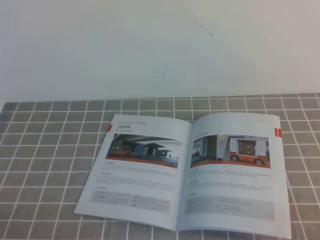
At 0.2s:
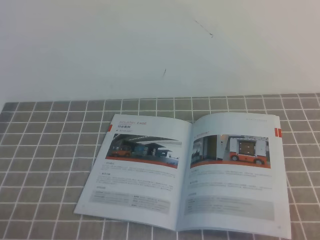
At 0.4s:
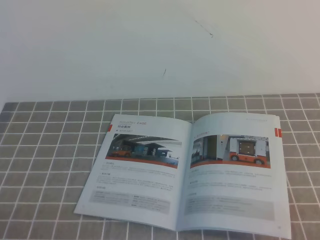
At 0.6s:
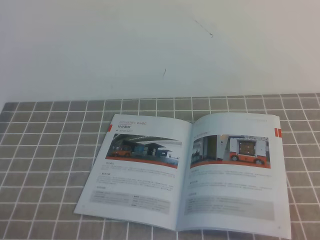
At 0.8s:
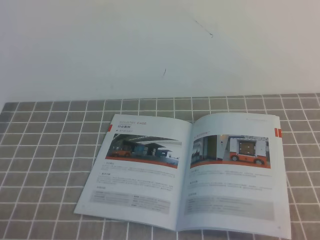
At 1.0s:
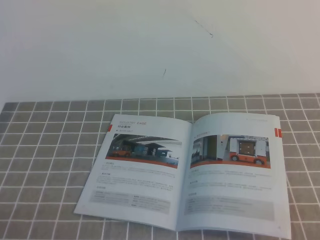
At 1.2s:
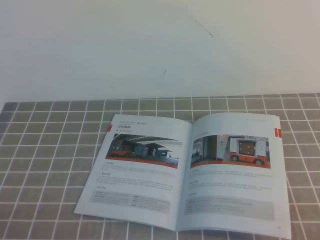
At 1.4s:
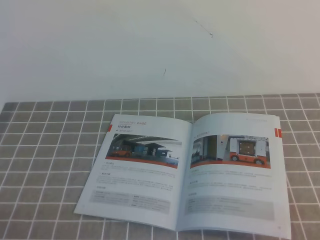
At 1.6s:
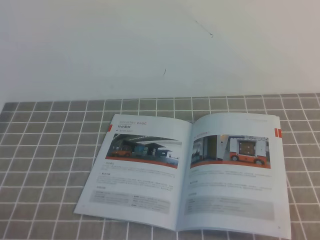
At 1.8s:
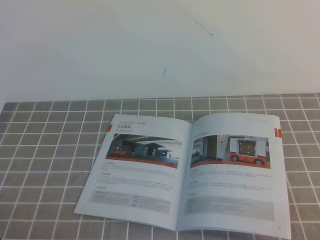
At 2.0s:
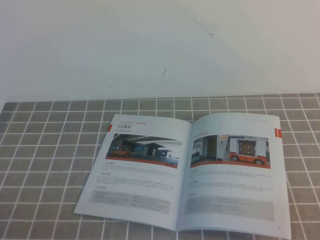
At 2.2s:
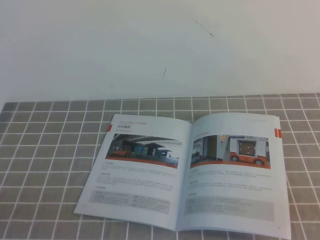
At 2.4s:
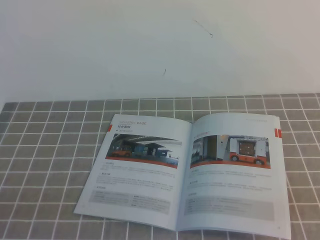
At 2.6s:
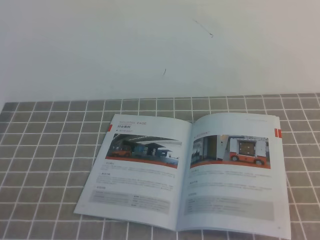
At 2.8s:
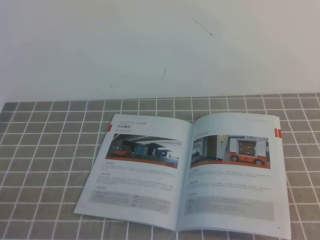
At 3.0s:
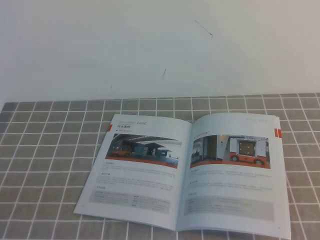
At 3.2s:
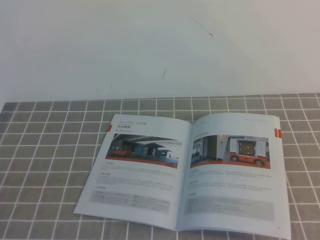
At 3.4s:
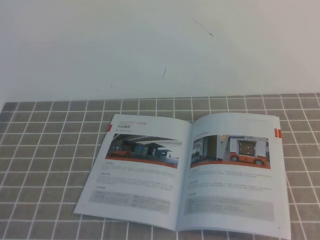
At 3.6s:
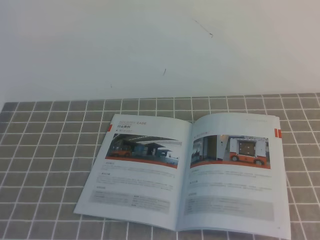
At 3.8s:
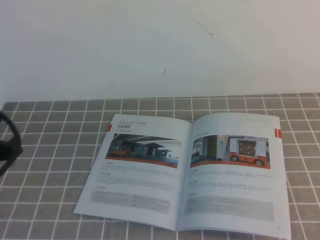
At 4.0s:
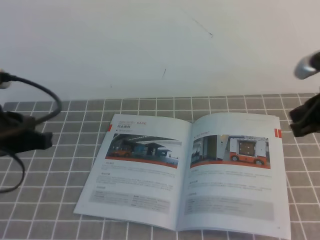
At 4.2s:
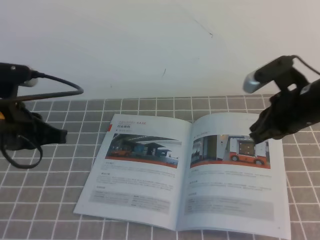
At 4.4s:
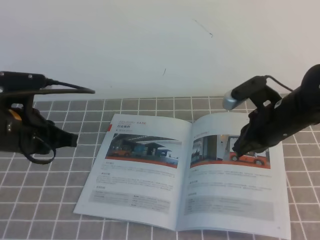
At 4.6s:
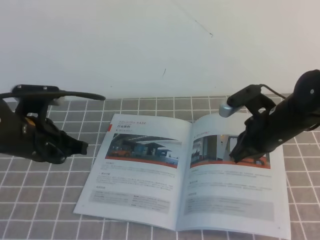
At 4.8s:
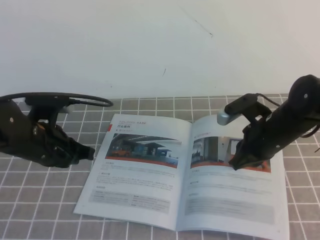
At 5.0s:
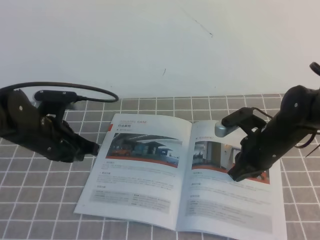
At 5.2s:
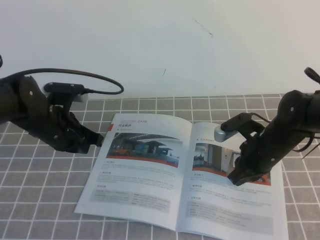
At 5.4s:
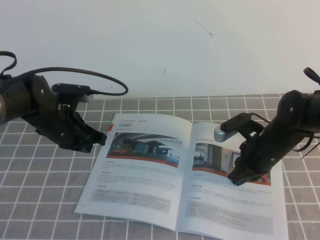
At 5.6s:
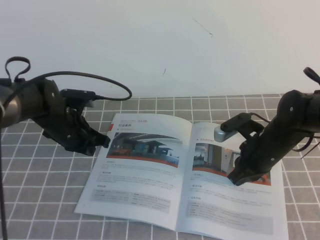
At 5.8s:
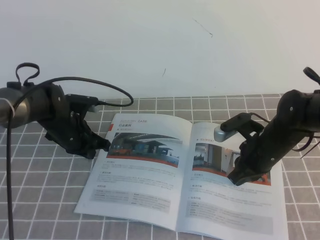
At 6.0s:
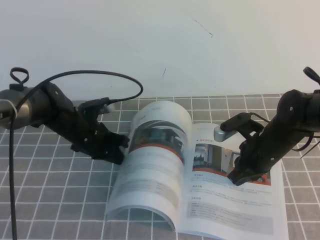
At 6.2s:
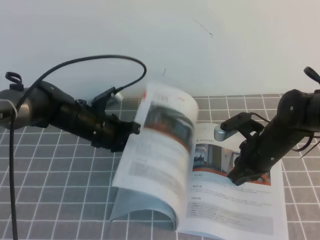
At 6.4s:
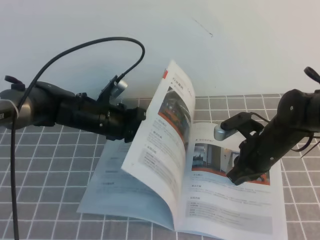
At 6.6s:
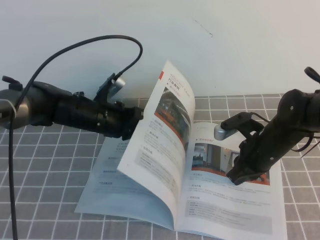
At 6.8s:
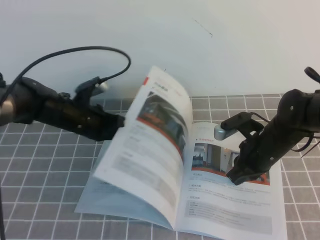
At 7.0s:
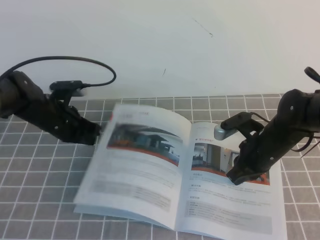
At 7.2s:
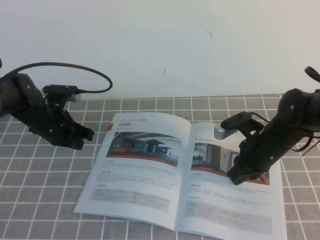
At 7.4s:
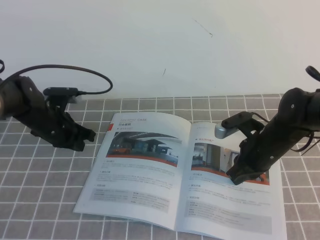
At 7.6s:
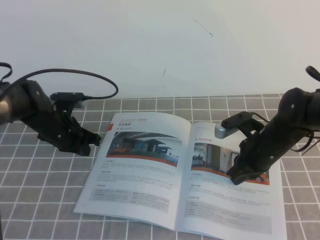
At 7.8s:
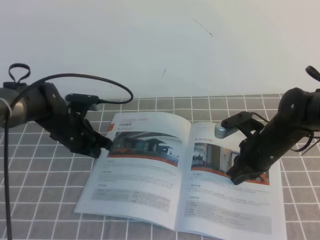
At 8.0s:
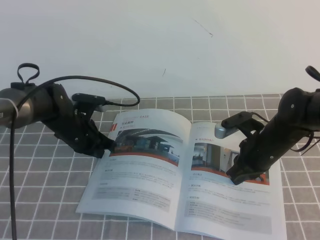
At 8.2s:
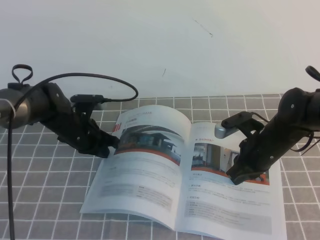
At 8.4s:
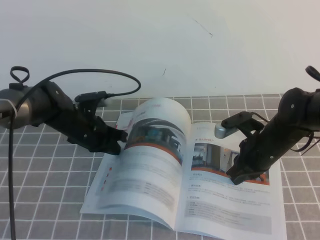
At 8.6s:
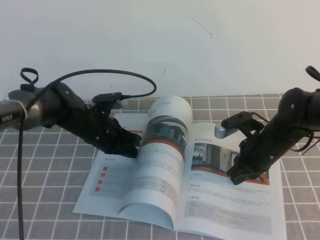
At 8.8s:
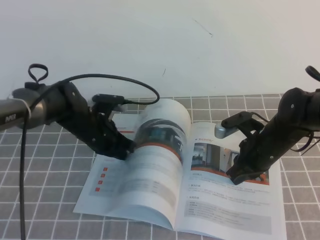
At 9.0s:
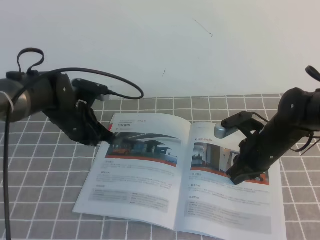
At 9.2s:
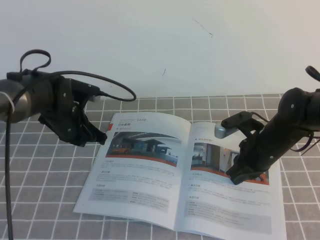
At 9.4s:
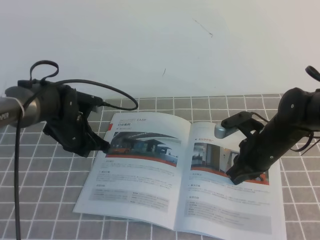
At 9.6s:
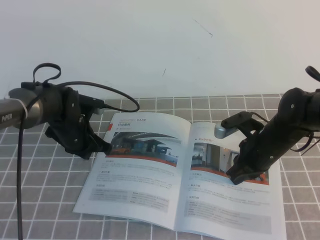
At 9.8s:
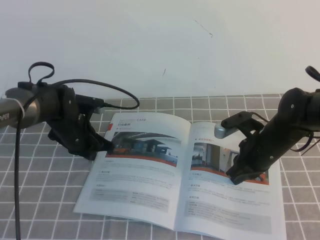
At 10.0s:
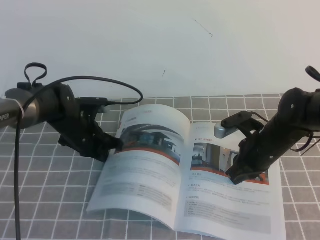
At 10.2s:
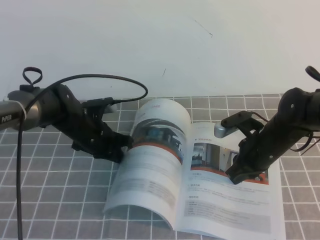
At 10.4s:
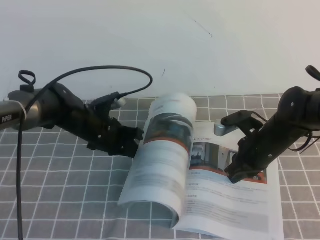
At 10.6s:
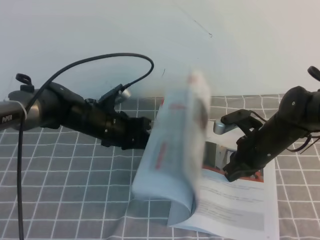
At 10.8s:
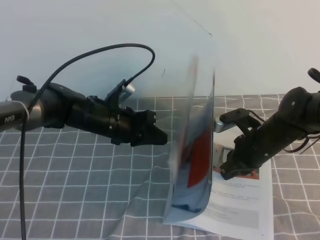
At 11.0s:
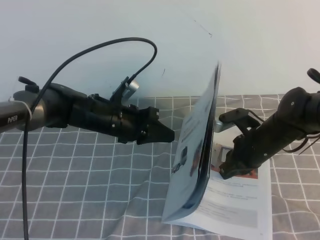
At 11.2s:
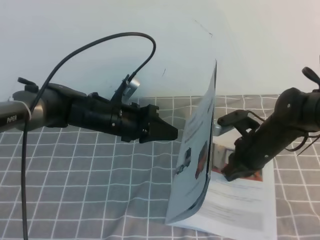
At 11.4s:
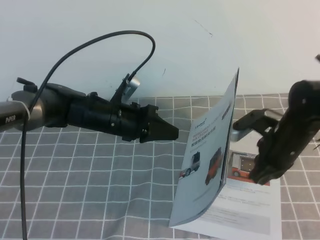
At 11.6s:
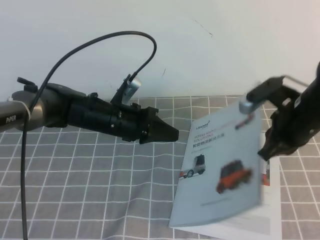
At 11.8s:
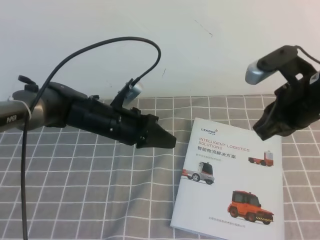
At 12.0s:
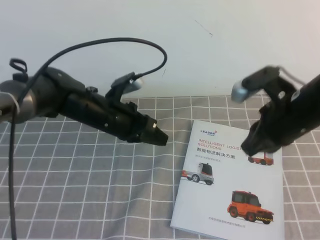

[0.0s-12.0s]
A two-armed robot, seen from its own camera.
Task of the whole recording: on the grey tablecloth, hold the book with one hand and close it with the other.
0.0s to 1.6s: Neither gripper changes place.
3.0s to 4.4s: The left gripper moves forward, about 25 cm. The right gripper travels forward and to the left by some 35 cm.
4.4s to 6.0s: The left gripper shifts roughly 20 cm forward and downward. Meanwhile the right gripper heads downward, covering about 10 cm.
6.0s to 7.6s: The left gripper changes place by approximately 5 cm.
7.6s to 9.0s: The left gripper goes about 5 cm to the right.
10.4s to 12.0s: The right gripper shifts about 15 cm upward, while the left gripper moves upward, roughly 5 cm.

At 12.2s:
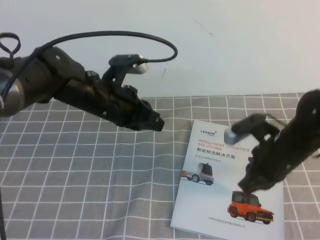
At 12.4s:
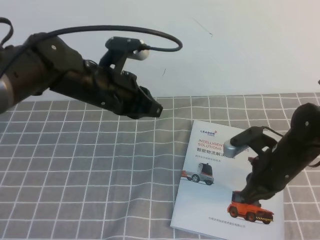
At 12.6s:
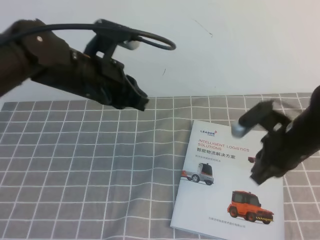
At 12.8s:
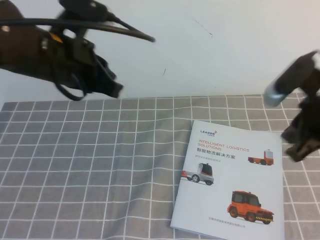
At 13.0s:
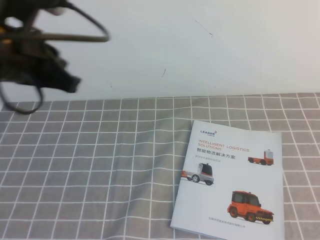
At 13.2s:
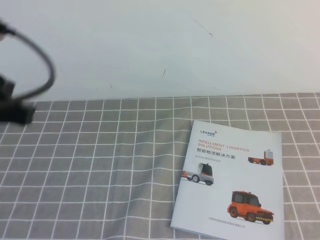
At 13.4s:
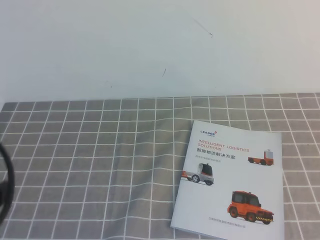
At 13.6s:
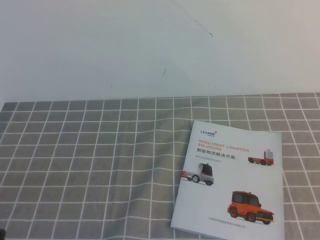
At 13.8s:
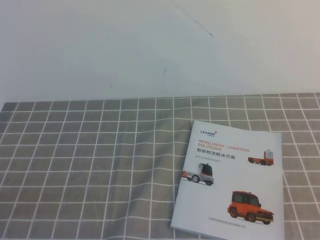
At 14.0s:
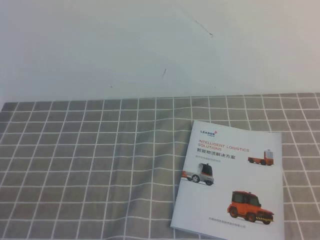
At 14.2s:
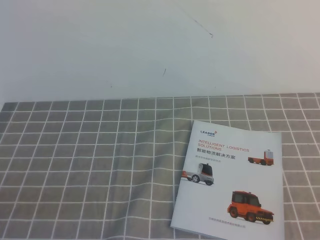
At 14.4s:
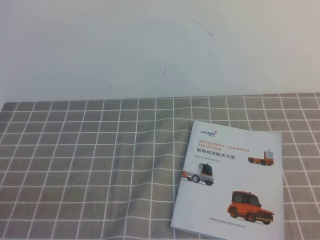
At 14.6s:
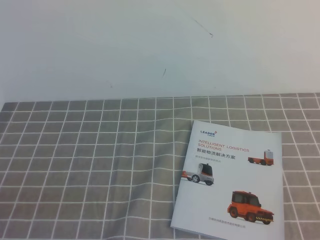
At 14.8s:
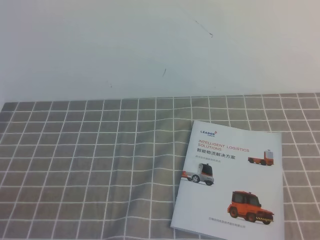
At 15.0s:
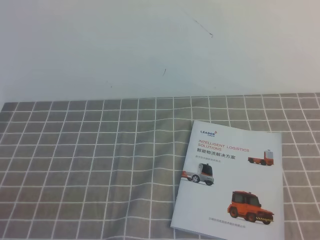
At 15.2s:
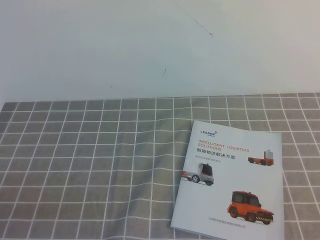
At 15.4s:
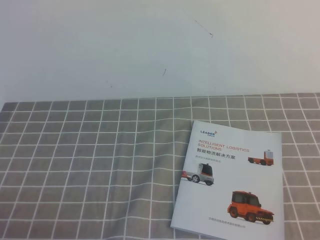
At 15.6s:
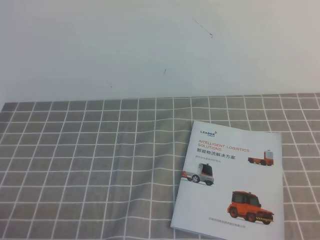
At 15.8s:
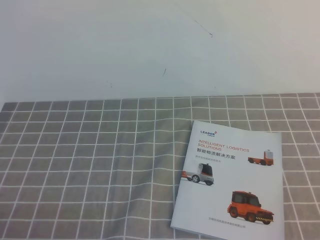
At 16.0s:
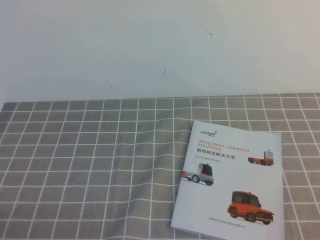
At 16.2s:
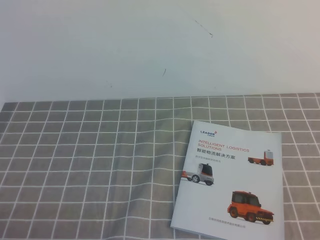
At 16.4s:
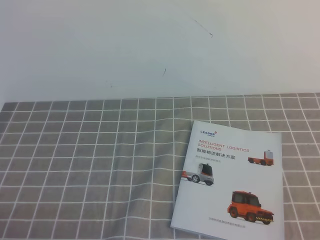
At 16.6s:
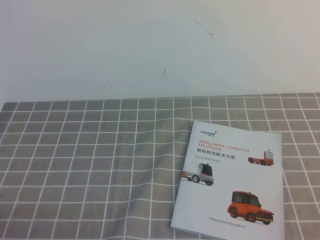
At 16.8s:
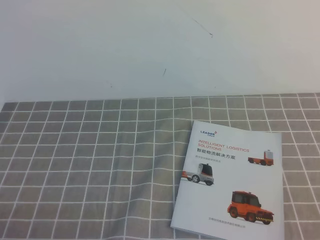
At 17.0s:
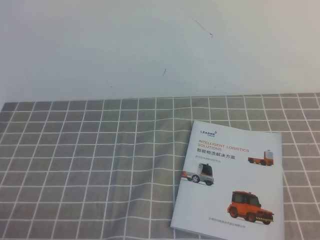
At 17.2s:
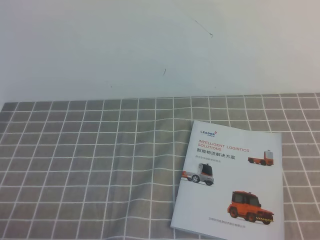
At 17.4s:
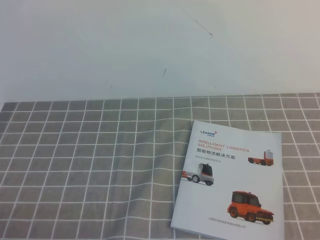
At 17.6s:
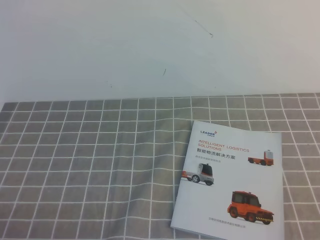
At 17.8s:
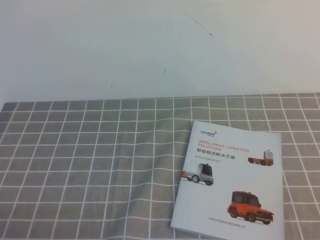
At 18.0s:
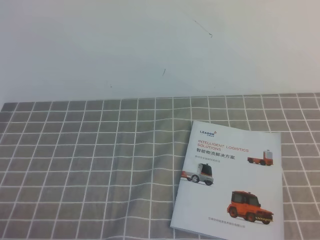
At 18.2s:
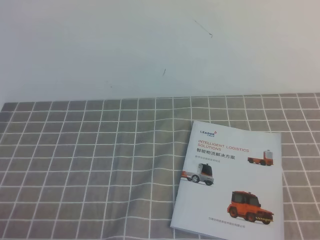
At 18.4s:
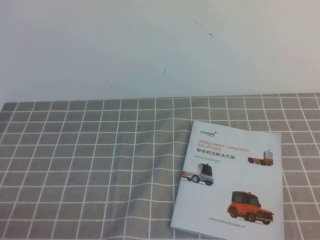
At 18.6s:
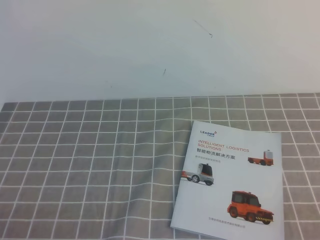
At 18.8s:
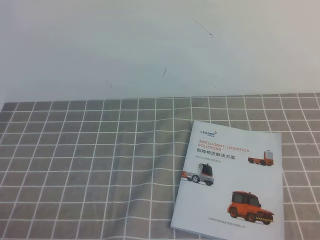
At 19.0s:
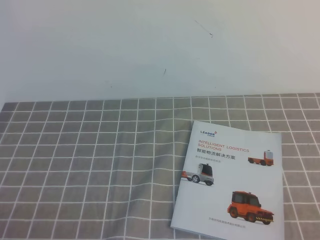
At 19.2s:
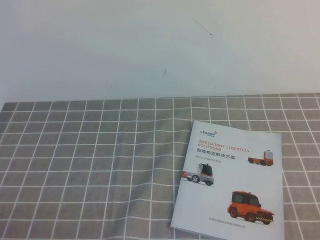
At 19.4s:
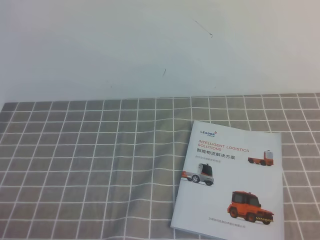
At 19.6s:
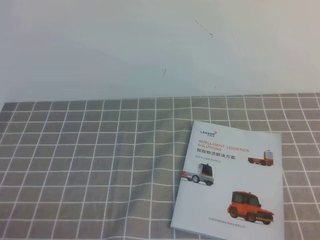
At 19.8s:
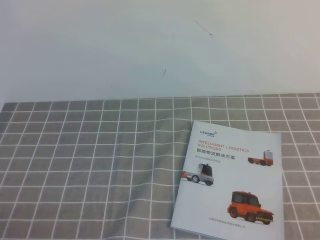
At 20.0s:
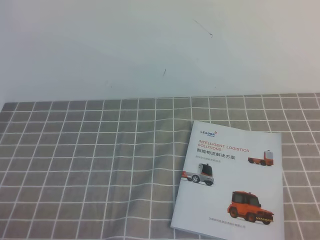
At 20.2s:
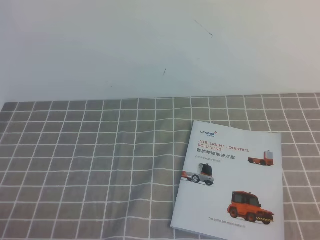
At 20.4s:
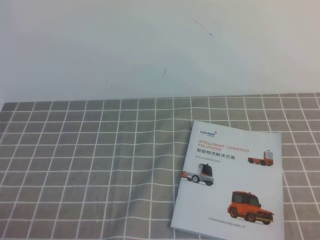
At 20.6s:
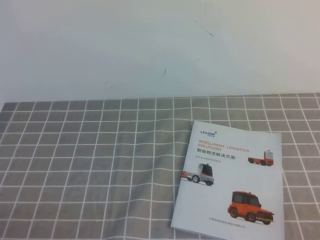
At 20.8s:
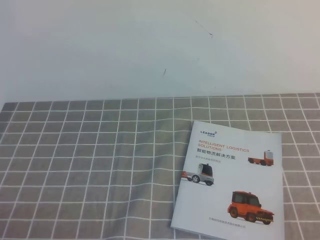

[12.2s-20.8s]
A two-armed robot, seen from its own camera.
Task of the whole recording: on the grey tablecloth, hold the book with one hand and close it with the other.
Step, 12.2s to 20.8s: Close the open book.
12.2s to 13.6s: The left gripper heads backward and to the left, covering approximately 30 cm. The right gripper heads backward, upward and to the right, covering some 25 cm.
19.4s to 20.8s: Neither gripper changes place.

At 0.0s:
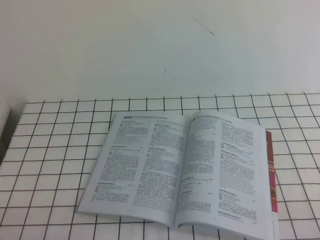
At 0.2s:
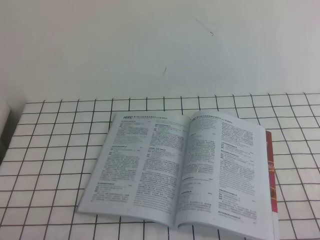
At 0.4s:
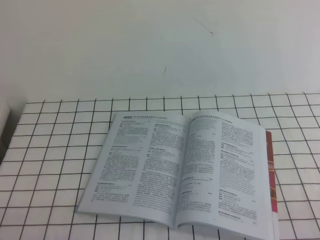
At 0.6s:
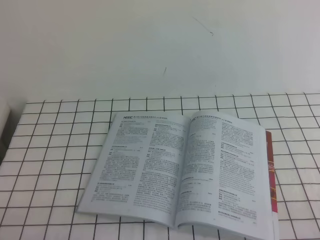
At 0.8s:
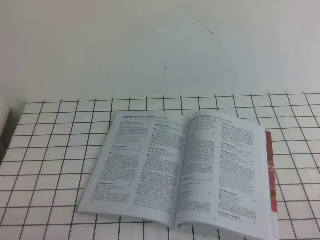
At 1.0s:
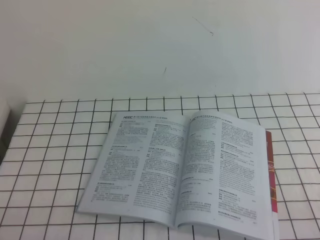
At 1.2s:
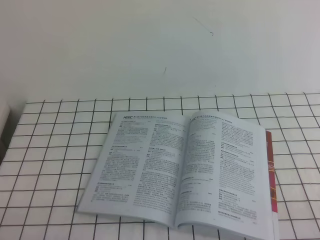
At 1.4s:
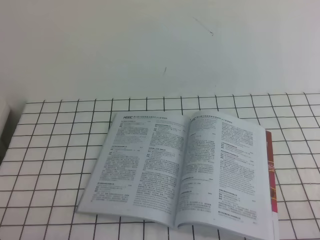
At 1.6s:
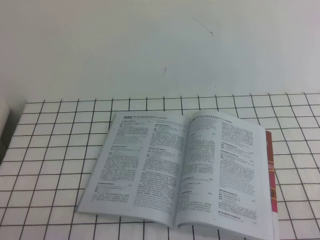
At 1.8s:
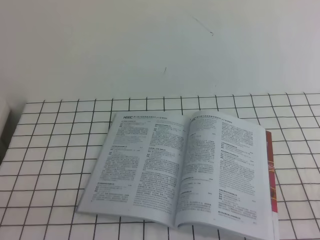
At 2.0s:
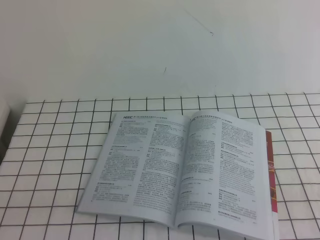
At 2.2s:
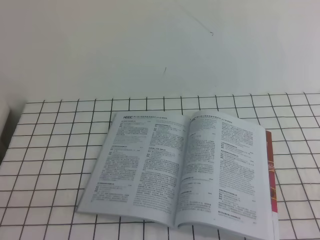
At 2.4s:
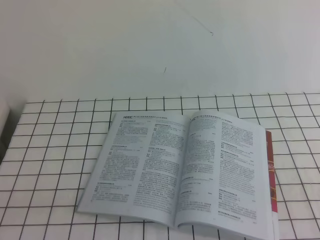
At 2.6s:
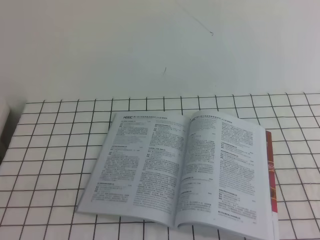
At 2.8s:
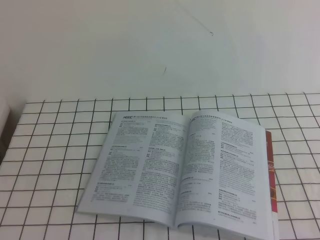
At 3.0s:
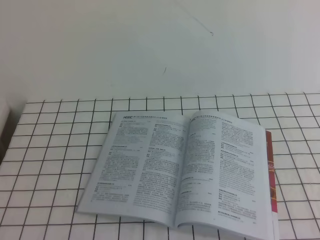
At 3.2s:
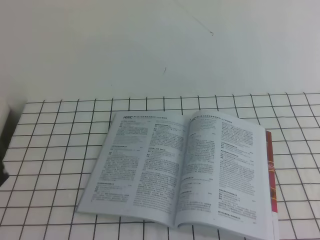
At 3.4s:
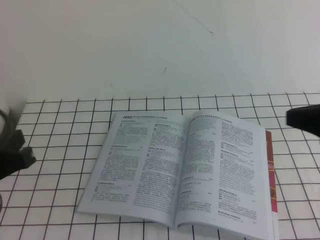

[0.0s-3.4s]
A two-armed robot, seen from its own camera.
Task of the whole recording: on the white tablecloth, hold the book with one hand and close it with the other.
1.6s to 3.4s: The right gripper goes about 20 cm forward and upward, while the left gripper heads upward and forward, covering roughly 15 cm.
